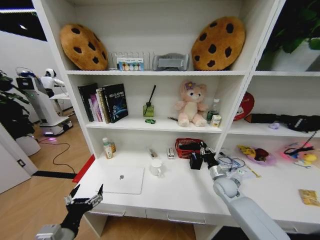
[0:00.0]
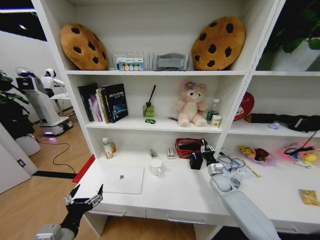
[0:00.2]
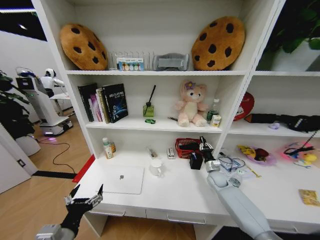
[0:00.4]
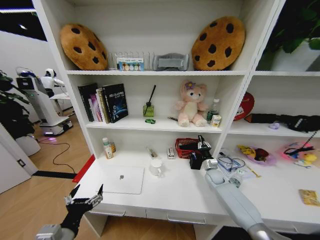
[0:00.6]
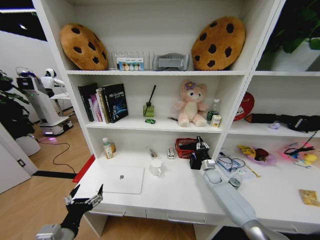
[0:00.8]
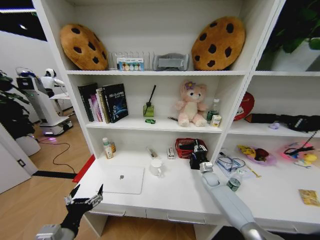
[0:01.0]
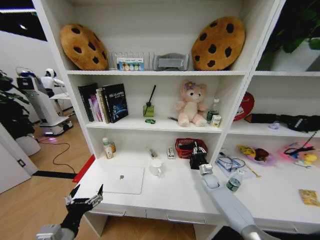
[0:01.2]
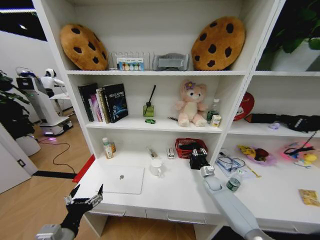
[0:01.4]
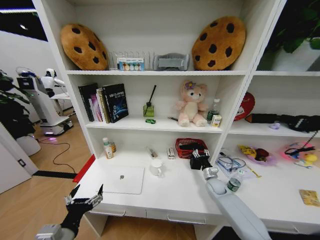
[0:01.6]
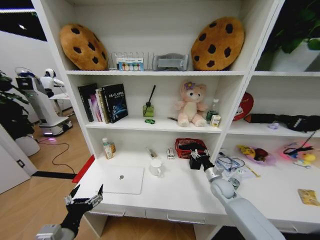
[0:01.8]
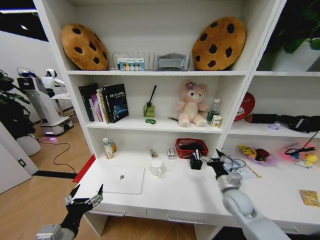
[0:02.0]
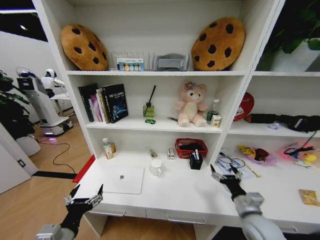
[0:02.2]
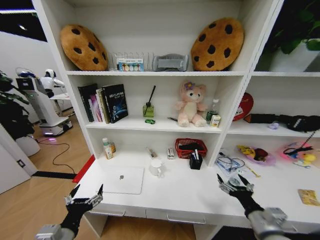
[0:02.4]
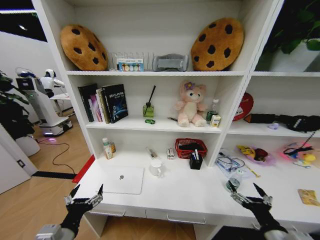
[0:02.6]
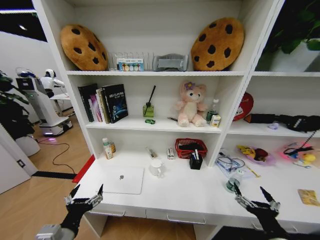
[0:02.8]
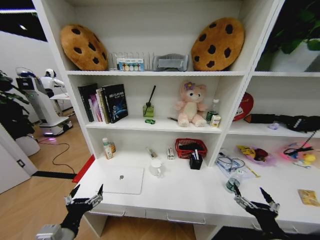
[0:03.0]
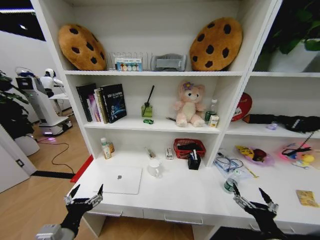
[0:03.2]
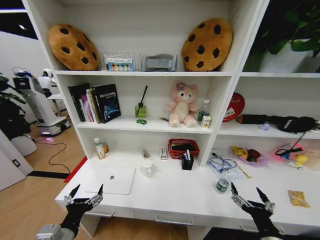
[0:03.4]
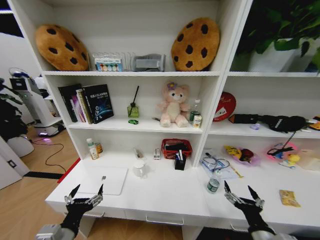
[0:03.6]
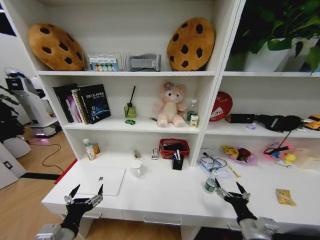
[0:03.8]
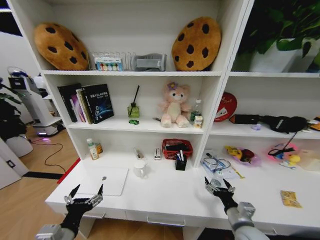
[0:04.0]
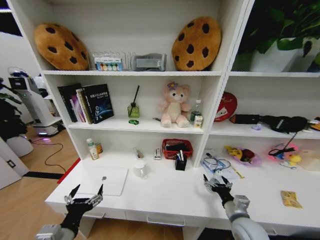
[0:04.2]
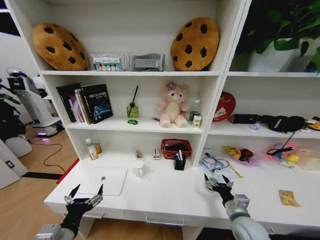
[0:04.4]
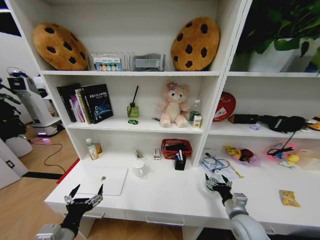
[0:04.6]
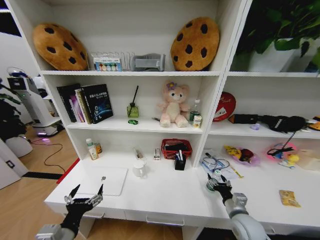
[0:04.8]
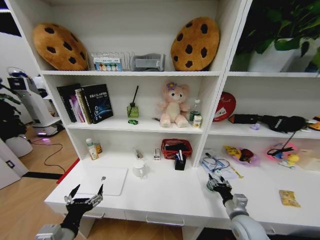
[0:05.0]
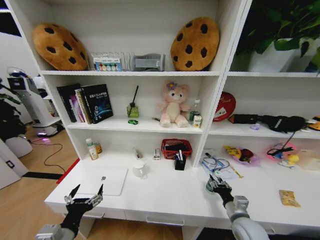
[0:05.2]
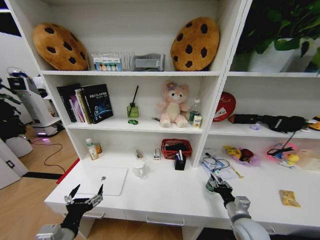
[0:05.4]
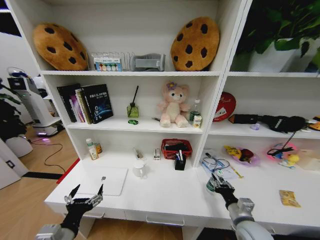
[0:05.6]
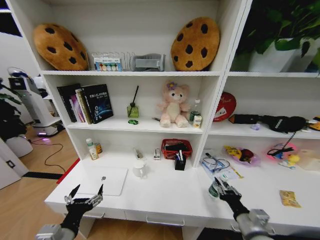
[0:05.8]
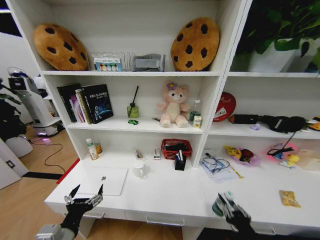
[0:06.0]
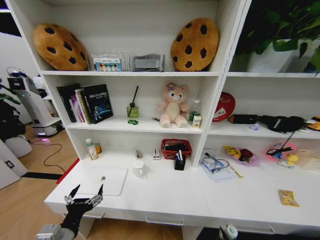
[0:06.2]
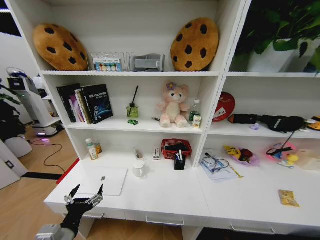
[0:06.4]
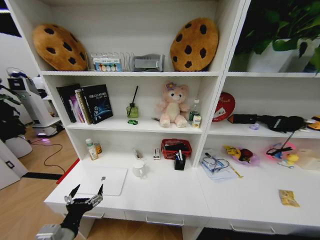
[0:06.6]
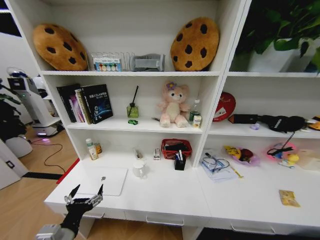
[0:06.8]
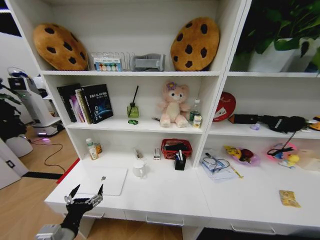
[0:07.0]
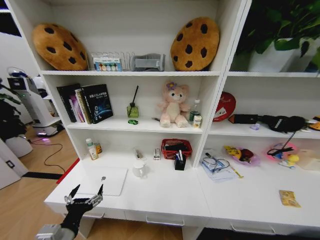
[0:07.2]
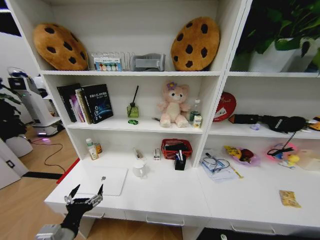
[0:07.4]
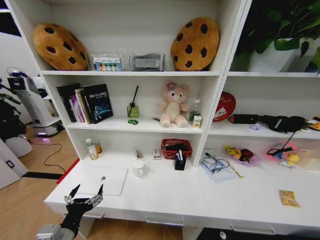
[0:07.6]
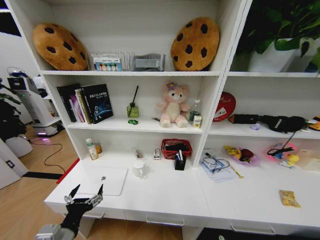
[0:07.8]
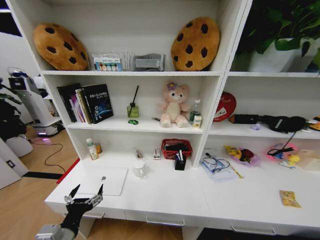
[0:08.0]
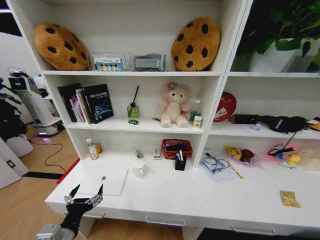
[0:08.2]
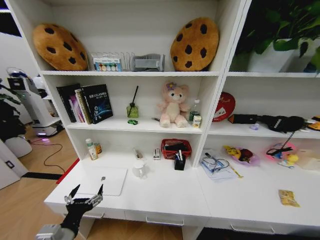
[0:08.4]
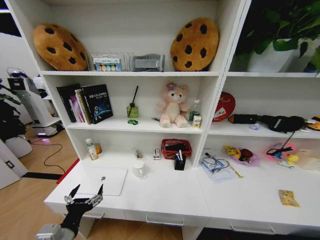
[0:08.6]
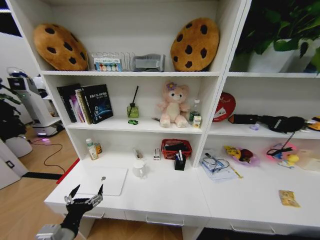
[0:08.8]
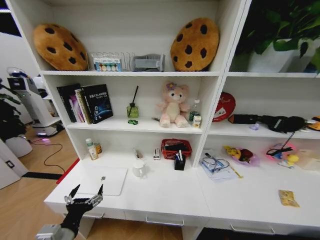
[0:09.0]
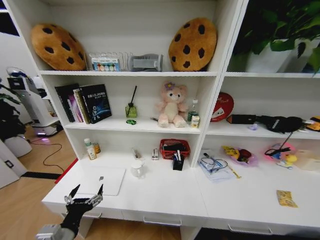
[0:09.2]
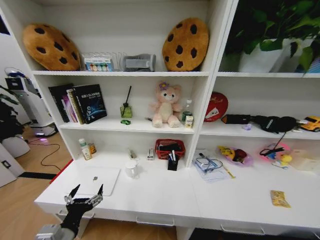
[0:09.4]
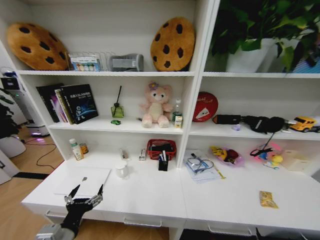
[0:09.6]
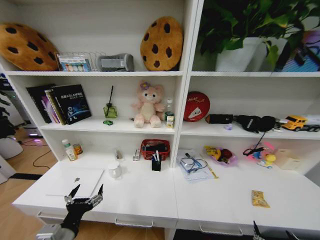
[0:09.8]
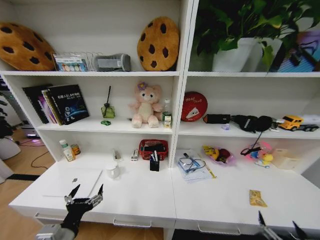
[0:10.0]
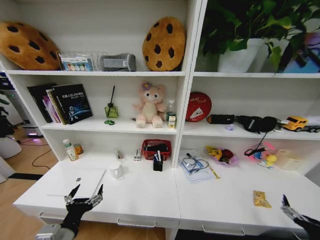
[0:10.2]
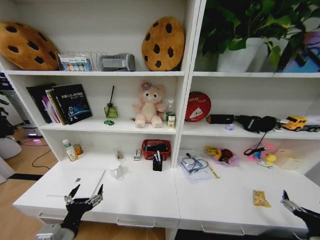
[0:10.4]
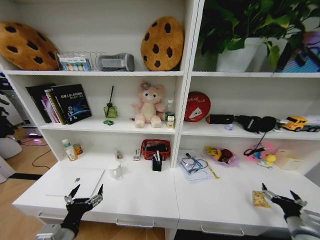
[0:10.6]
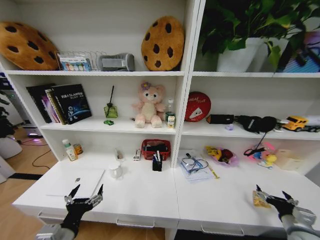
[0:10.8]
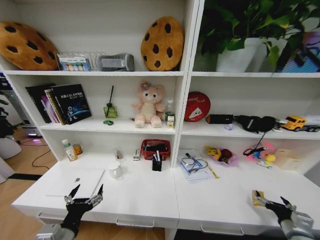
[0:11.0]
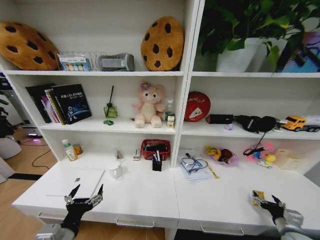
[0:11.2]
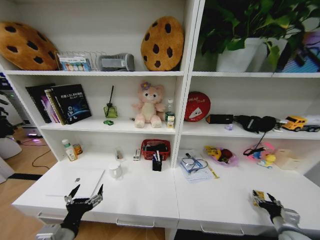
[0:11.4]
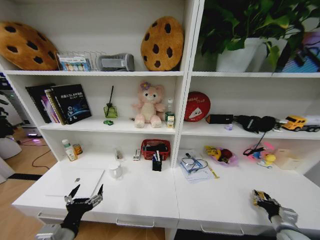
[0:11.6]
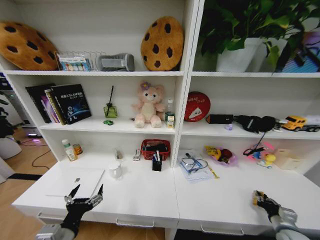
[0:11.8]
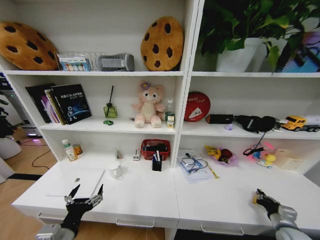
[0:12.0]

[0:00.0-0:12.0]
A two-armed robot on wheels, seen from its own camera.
Task of the whole recording: Organize the objects on the table.
0:00.0 to 0:01.6: The right gripper moves downward and forward, some 10 cm, and opens up.
0:01.6 to 0:03.0: The right gripper is displaced backward and upward by some 40 cm, and opens its fingers.
0:03.0 to 0:04.4: The right gripper heads forward and downward, covering roughly 15 cm.
0:04.4 to 0:06.0: The right gripper is displaced backward by roughly 15 cm, and closes its fingers.
0:06.0 to 0:07.6: The right gripper heads downward, covering roughly 40 cm.
0:09.0 to 0:10.4: The right gripper is displaced forward, upward and to the right by approximately 30 cm.
0:10.4 to 0:12.0: The right gripper heads forward and downward, covering roughly 10 cm, and closes up.

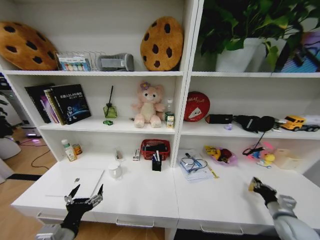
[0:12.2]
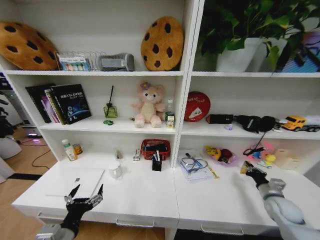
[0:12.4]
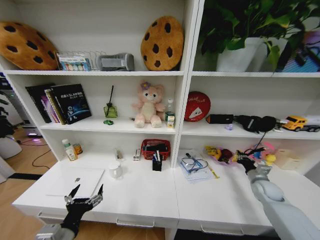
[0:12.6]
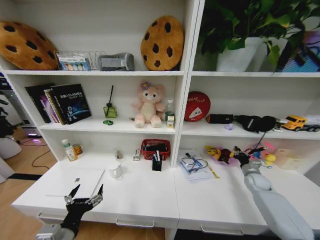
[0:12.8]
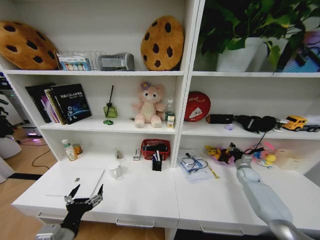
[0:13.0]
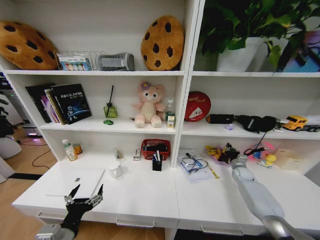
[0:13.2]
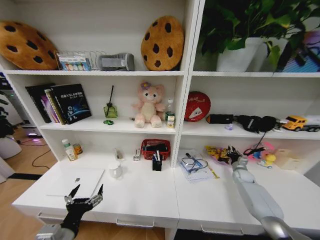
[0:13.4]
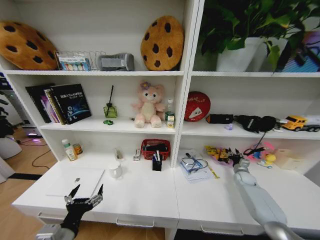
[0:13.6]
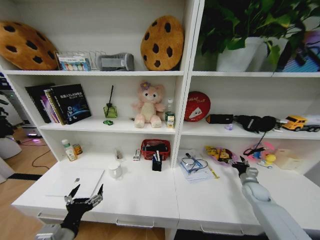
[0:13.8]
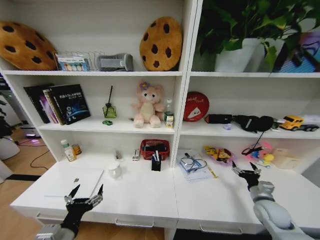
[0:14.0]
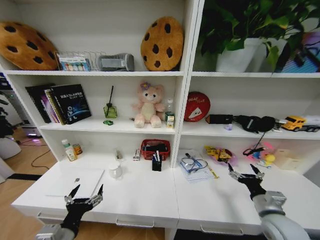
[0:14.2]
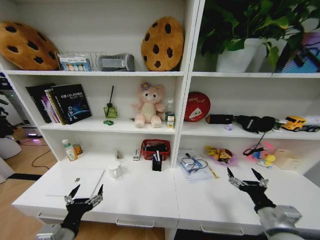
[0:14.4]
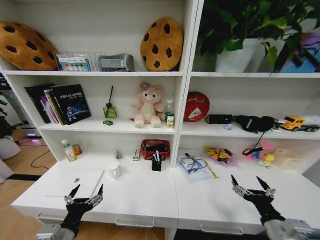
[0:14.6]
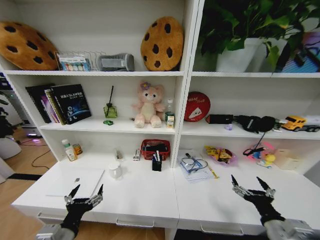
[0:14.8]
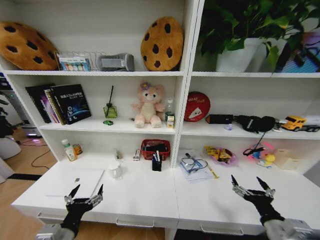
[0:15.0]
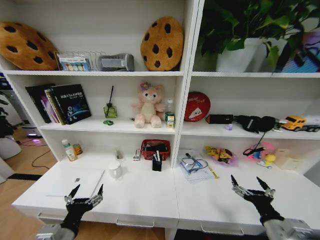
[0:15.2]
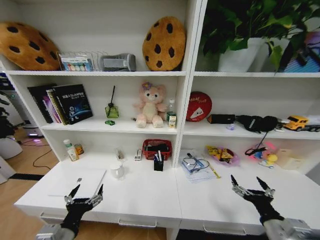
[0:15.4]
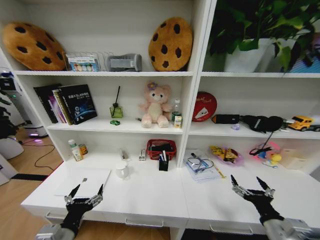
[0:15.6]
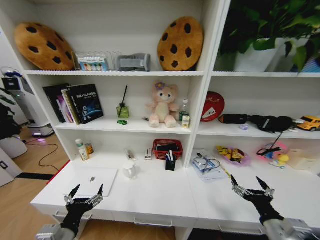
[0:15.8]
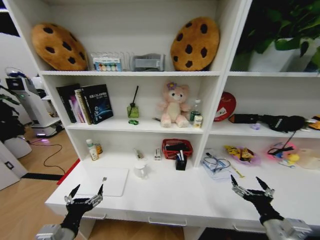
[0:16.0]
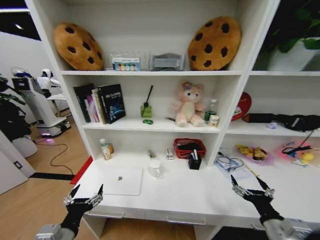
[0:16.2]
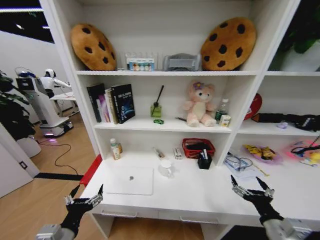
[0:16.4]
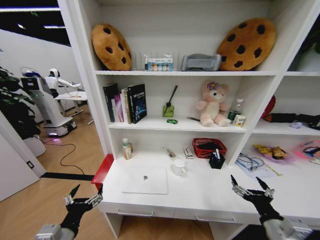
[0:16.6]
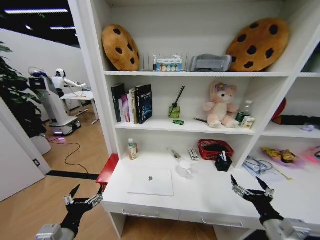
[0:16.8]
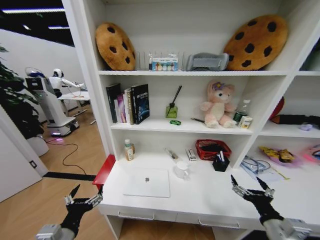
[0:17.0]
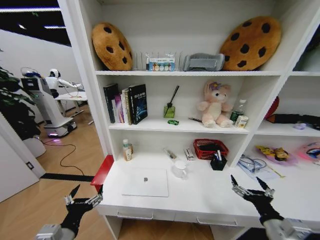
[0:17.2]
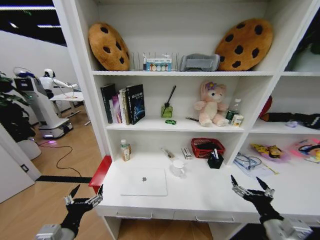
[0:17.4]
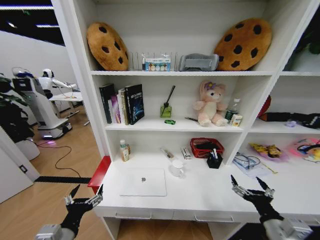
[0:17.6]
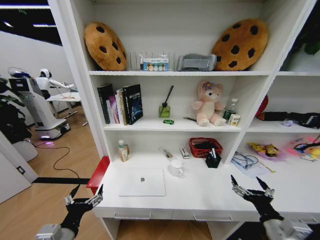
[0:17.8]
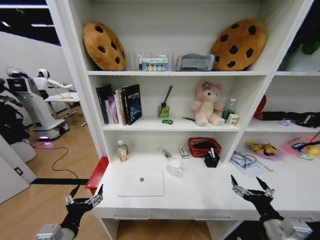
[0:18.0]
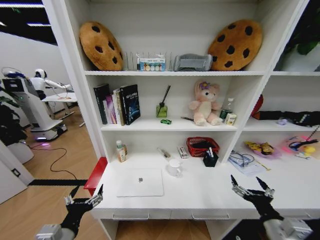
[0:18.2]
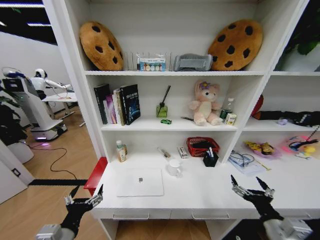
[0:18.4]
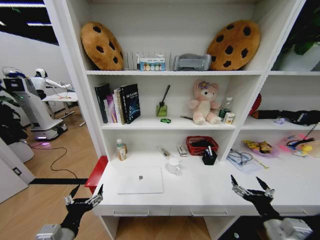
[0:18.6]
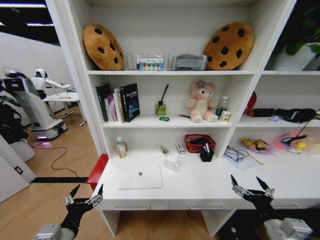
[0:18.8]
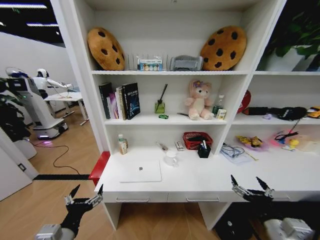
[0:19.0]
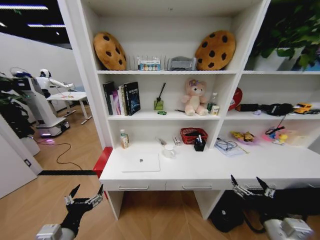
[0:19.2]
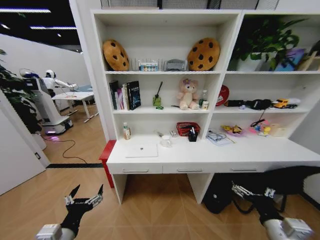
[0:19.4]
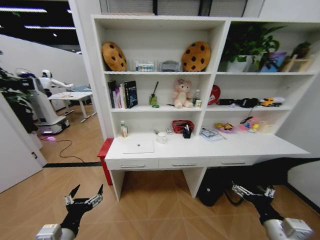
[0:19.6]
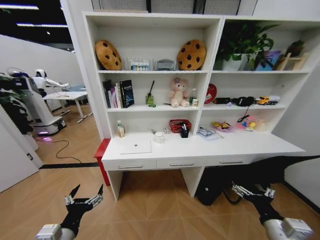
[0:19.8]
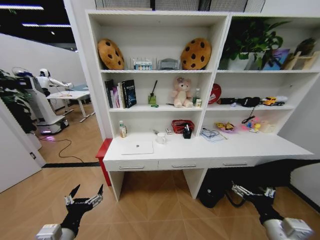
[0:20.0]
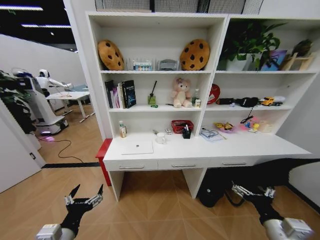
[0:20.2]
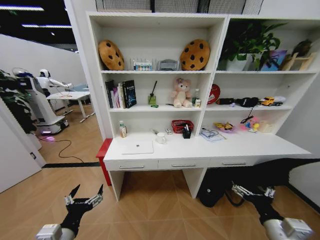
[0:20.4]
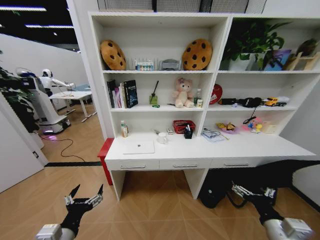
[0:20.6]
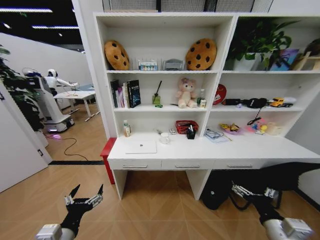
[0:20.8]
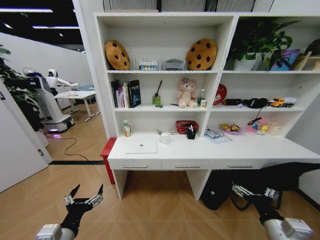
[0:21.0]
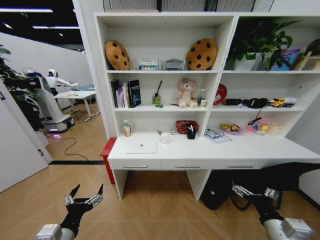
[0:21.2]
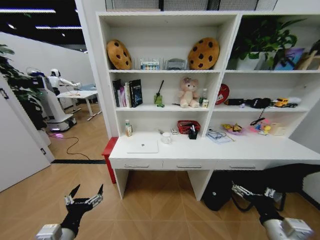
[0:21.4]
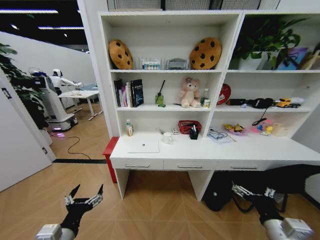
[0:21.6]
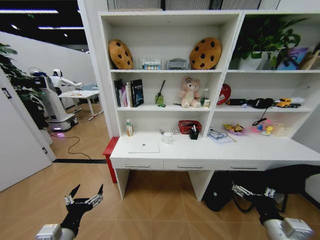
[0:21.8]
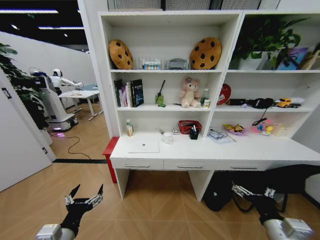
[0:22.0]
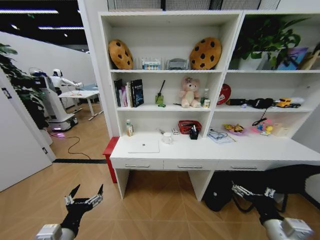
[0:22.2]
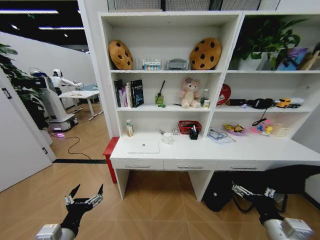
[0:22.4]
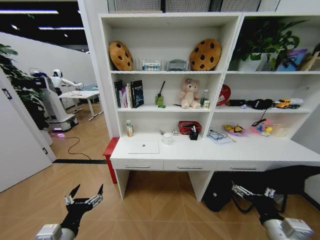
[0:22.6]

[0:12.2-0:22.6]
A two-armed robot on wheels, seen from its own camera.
Task of the whole recording: Organize the objects on the table.
0:12.2 to 0:13.6: The right gripper shifts about 25 cm forward.
0:13.6 to 0:15.2: The right gripper goes about 40 cm backward, to the left and upward, and opens its fingers.
